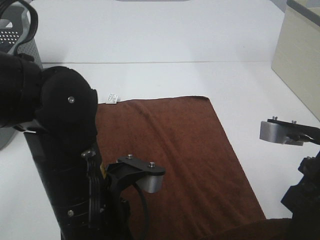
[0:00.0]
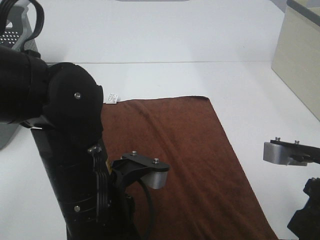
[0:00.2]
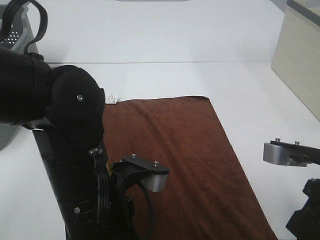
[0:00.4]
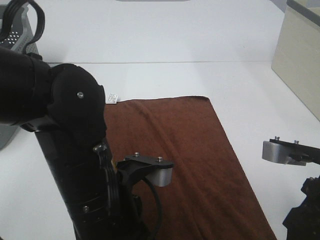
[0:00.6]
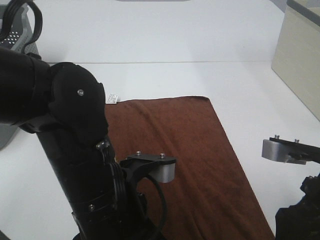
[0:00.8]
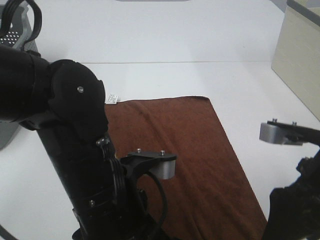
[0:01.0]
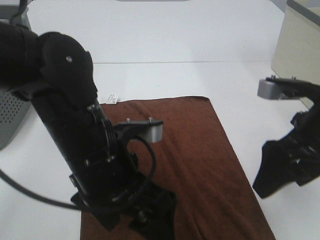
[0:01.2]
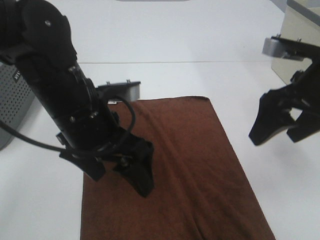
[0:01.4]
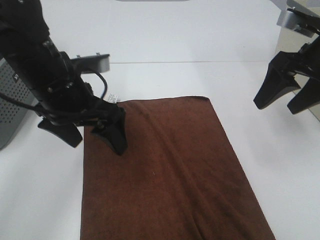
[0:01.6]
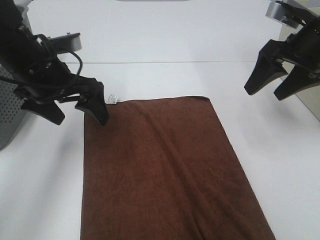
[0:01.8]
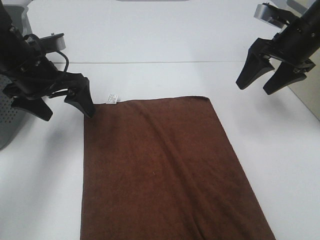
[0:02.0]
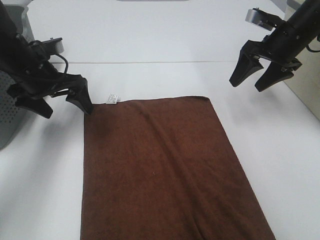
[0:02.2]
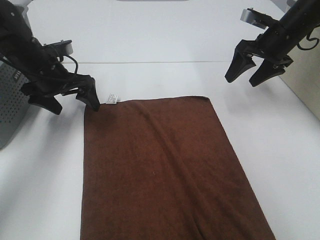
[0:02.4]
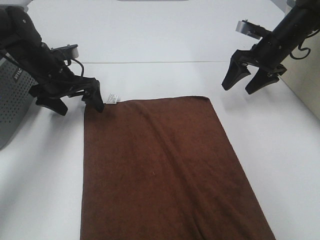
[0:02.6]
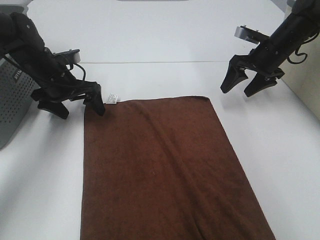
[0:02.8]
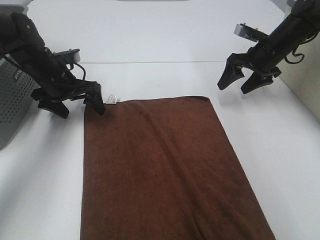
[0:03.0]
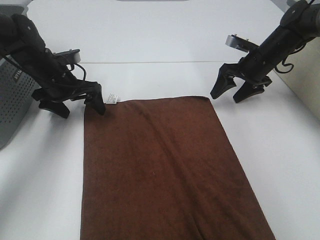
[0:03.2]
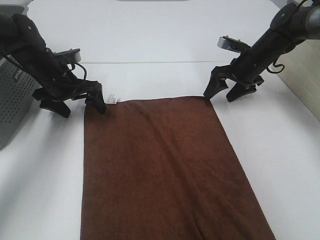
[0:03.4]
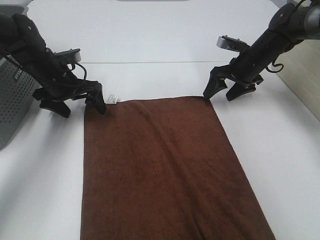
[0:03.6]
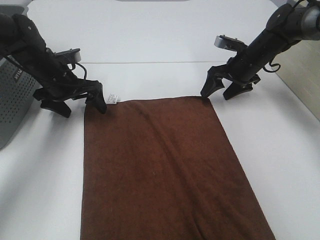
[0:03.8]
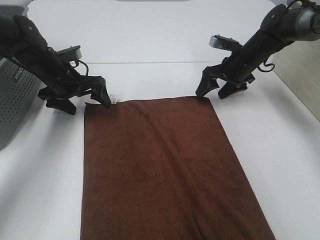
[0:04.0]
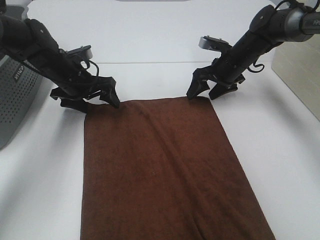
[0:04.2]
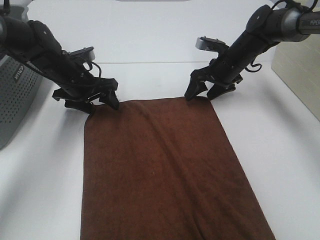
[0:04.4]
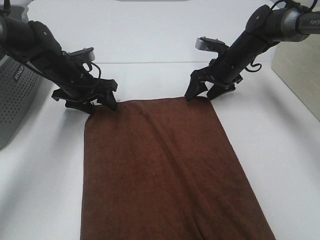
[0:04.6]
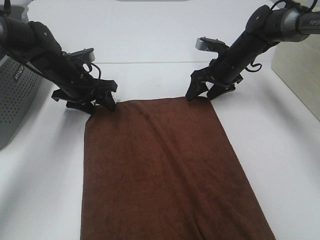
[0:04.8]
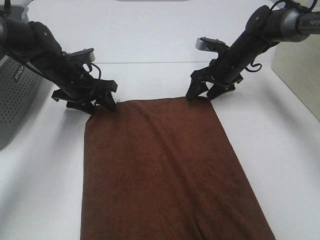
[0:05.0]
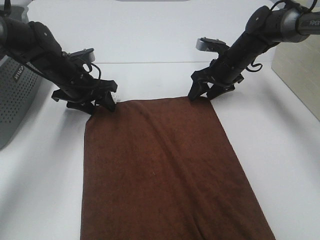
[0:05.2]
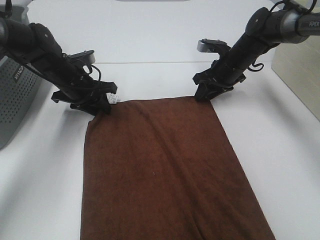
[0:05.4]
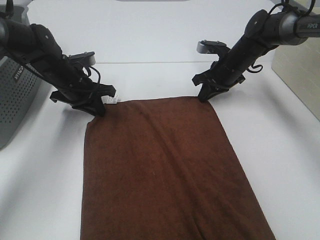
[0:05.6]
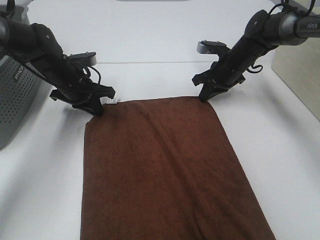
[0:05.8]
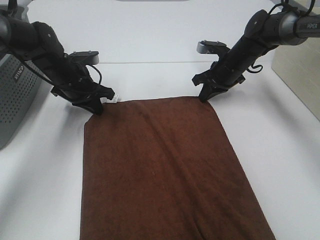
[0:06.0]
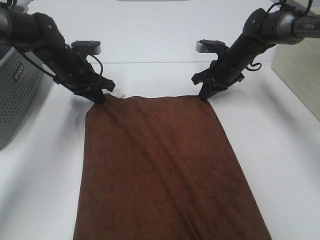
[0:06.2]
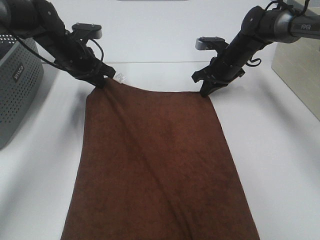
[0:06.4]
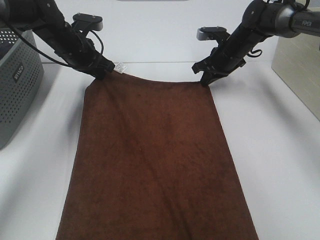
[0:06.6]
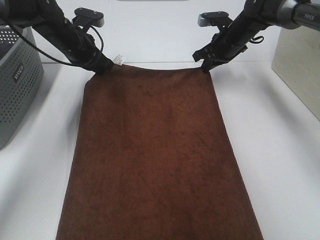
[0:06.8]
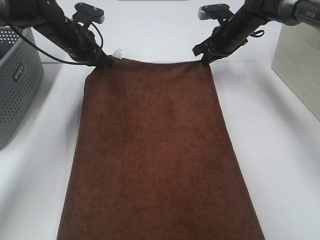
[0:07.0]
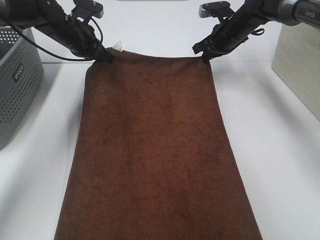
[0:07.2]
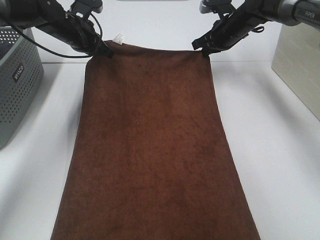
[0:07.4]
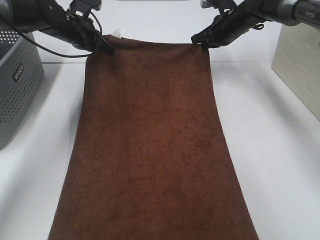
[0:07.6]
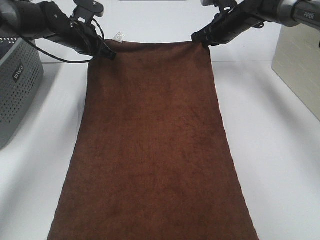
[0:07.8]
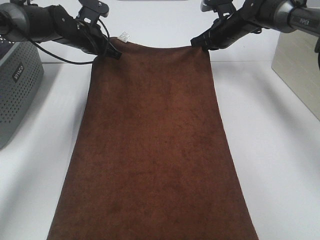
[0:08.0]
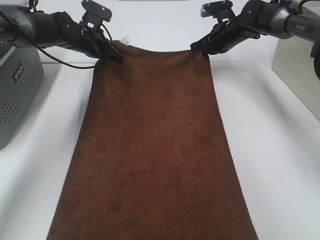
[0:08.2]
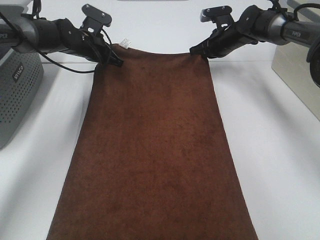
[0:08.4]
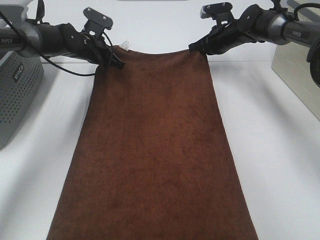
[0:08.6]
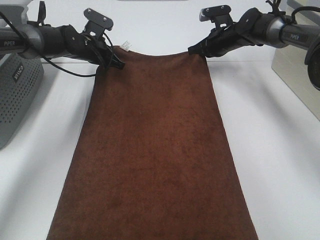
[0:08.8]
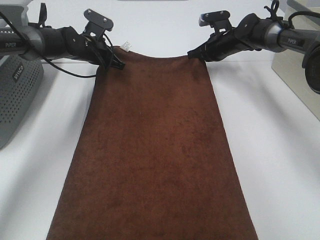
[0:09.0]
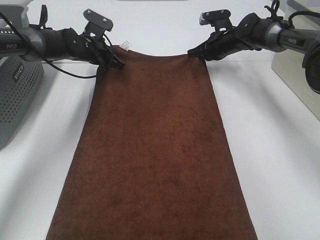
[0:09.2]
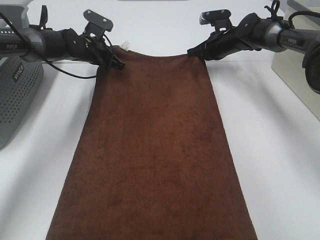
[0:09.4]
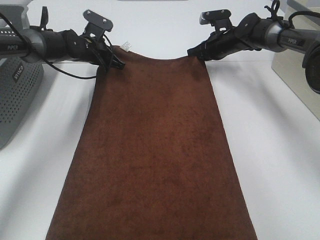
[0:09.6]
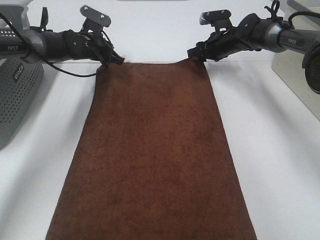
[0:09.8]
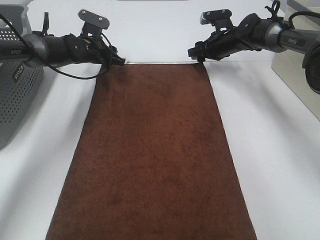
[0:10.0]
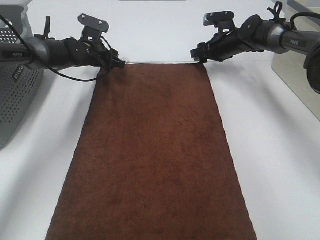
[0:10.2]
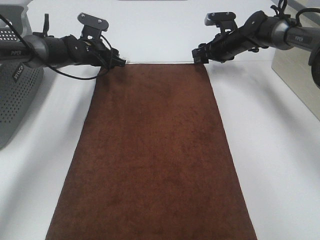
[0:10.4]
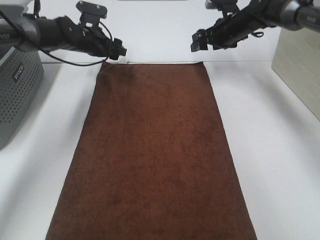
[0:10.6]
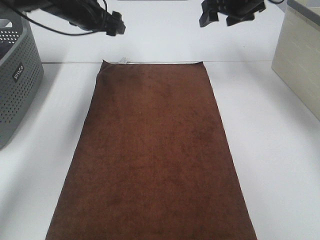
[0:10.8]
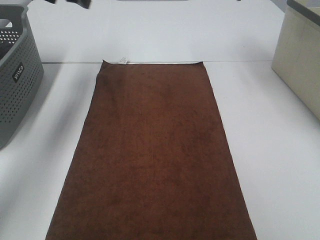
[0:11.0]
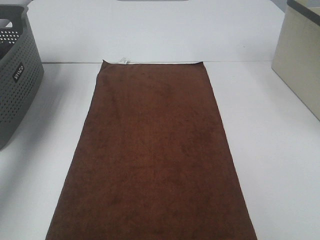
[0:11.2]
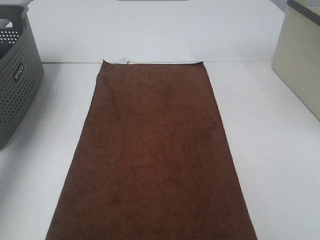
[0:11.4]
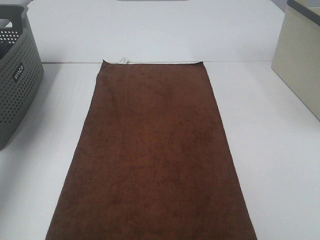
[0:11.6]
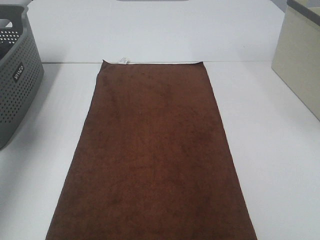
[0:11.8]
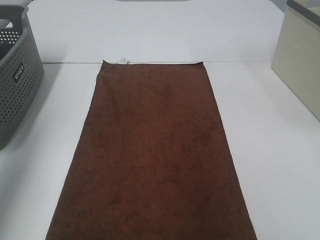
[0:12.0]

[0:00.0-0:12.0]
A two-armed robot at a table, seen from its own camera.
Task of the whole recording: Remove the towel and place it.
Step, 0:00.0 to 0:04.4: Left hand:adjust the brown towel.
Step, 0:00.0 to 0:04.4: Right hand:adjust the brown towel.
0:00.0 to 0:01.6: The left gripper goes some 15 cm forward and to the left, and opens its fingers. The right gripper heads forward, covering approximately 15 cm, and opens its fingers.
0:01.6 to 0:03.0: The right gripper travels forward and downward by approximately 20 cm. The left gripper is displaced forward, downward and to the left by some 20 cm.
0:03.0 to 0:04.4: The right gripper is displaced to the left by about 10 cm.
0:04.4 to 0:06.0: The left gripper closes up; the right gripper closes its fingers.
0:06.0 to 0:07.6: The left gripper is displaced forward and upward by roughly 10 cm. Meanwhile the right gripper moves upward and forward, roughly 10 cm.
0:07.6 to 0:09.0: The two grippers go approximately 5 cm downward.
0:09.0 to 0:10.4: The right gripper opens up. Meanwhile the left gripper opens up.
0:10.4 to 0:12.0: The right gripper is displaced backward and upward by approximately 50 cm, while the left gripper goes some 50 cm backward, upward and to the left.

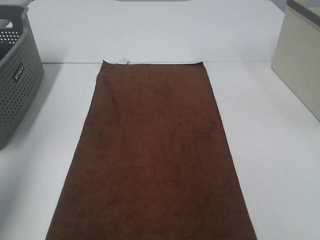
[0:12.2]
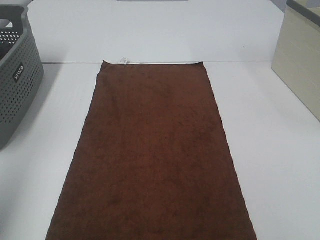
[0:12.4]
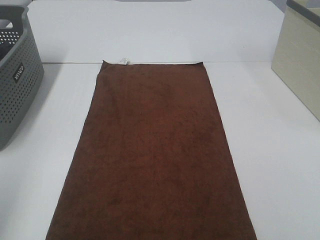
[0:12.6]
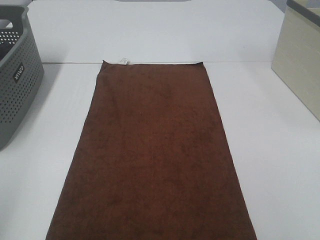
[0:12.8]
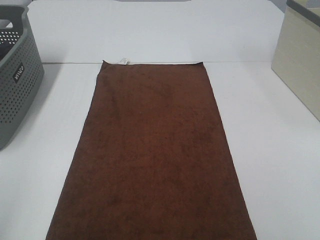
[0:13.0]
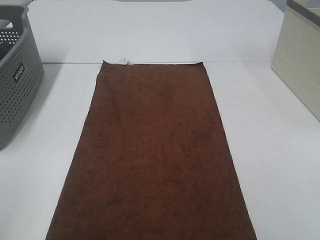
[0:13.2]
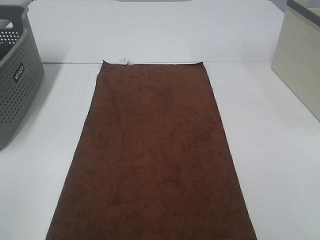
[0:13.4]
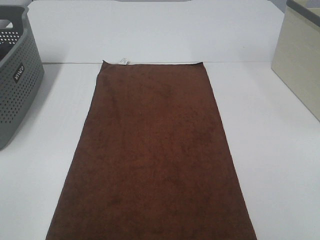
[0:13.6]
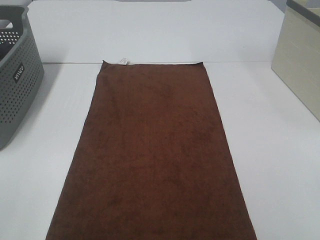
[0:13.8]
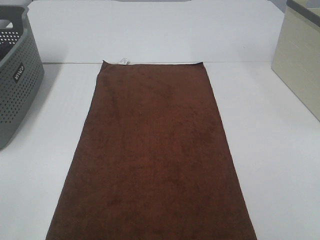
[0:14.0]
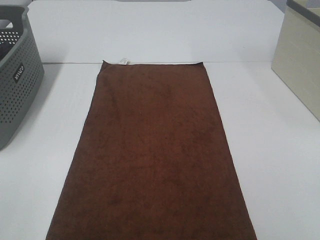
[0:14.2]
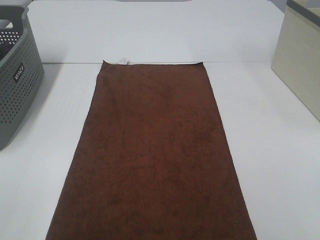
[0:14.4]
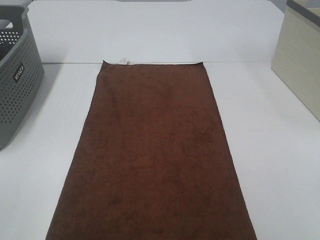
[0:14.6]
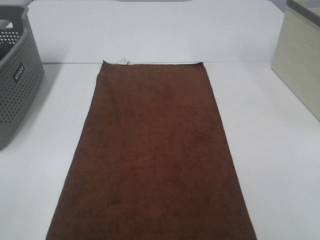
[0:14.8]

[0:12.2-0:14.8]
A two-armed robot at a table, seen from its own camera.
Task of the whole recording: Remove the towel and place it.
0:12.2 to 0:13.4: The left gripper is displaced backward and downward by about 20 cm.

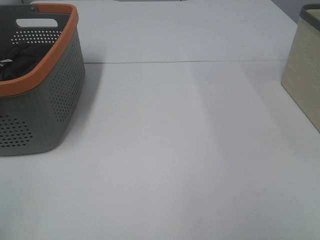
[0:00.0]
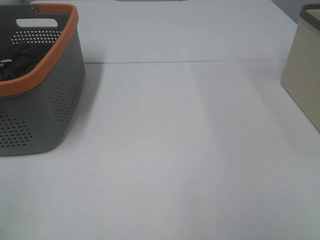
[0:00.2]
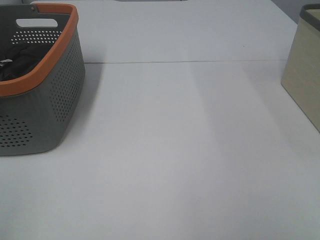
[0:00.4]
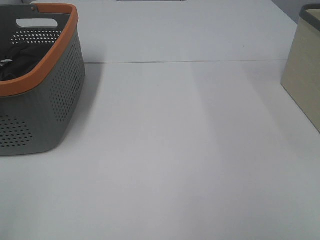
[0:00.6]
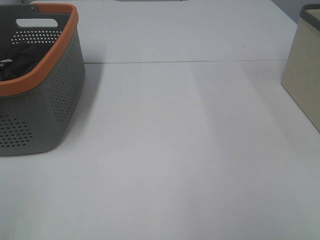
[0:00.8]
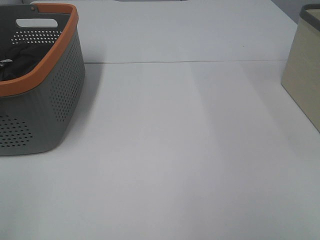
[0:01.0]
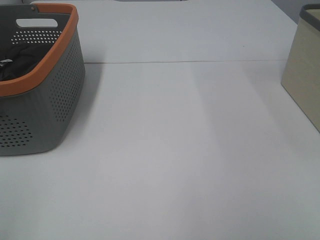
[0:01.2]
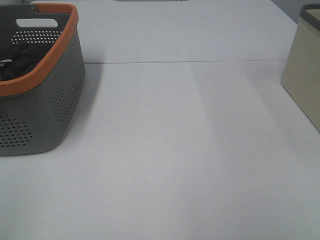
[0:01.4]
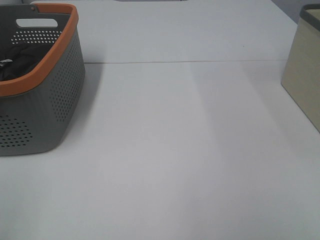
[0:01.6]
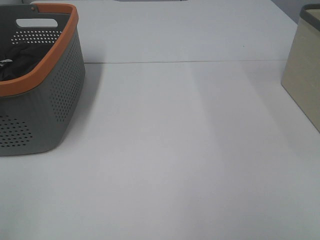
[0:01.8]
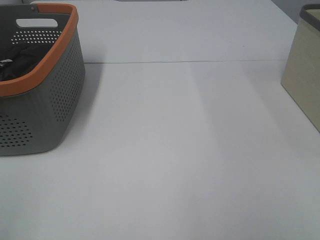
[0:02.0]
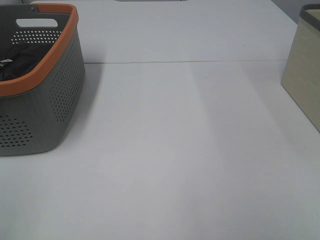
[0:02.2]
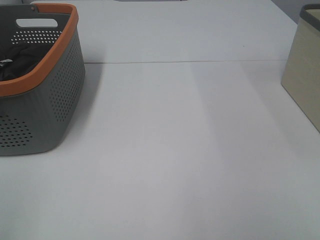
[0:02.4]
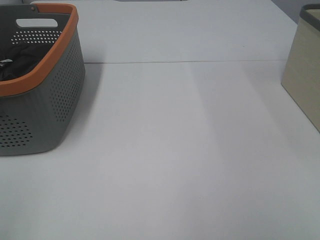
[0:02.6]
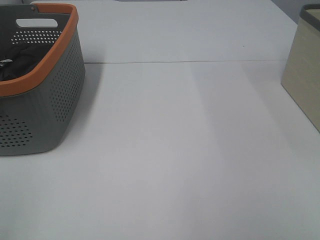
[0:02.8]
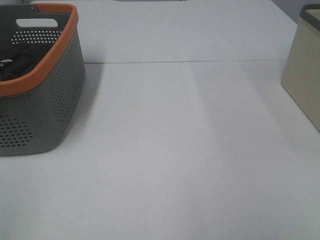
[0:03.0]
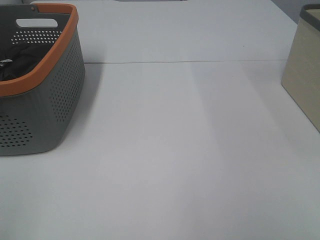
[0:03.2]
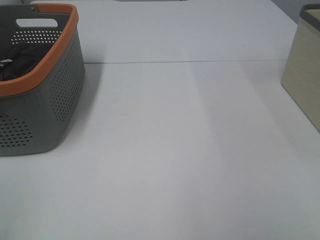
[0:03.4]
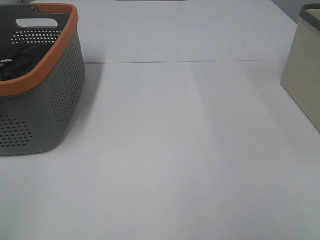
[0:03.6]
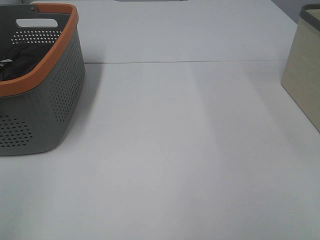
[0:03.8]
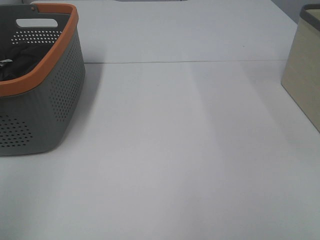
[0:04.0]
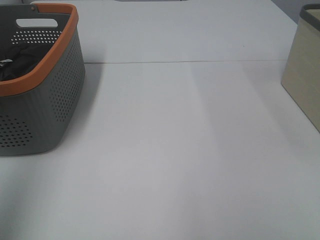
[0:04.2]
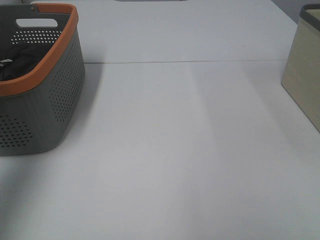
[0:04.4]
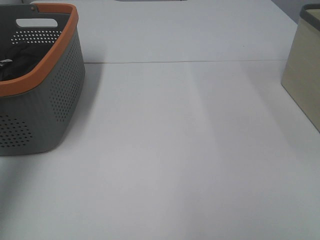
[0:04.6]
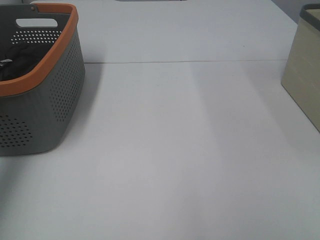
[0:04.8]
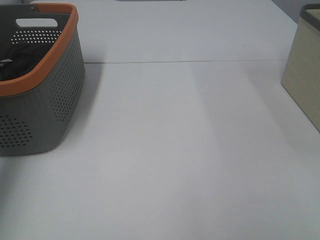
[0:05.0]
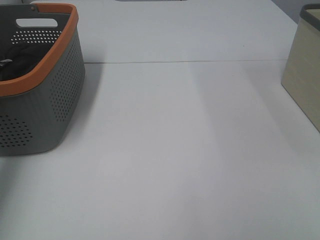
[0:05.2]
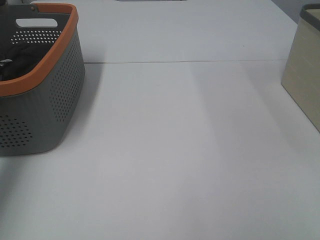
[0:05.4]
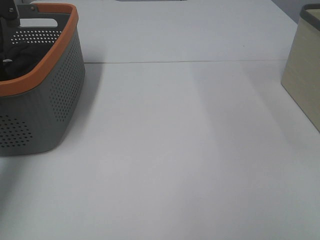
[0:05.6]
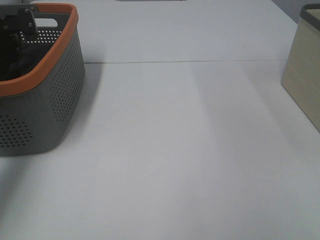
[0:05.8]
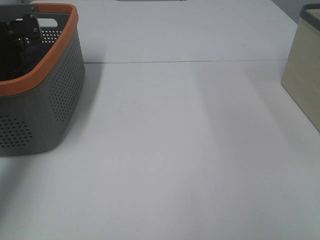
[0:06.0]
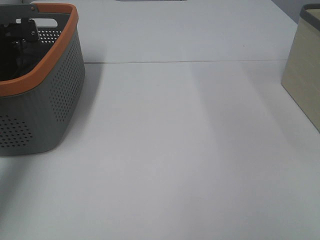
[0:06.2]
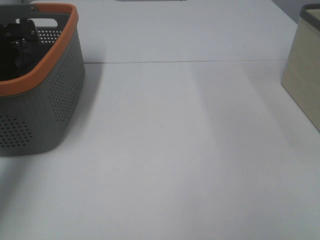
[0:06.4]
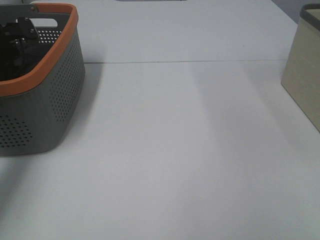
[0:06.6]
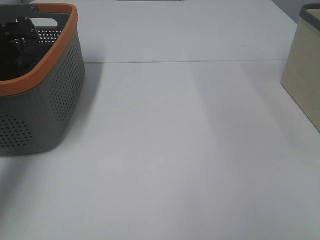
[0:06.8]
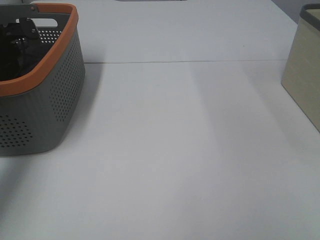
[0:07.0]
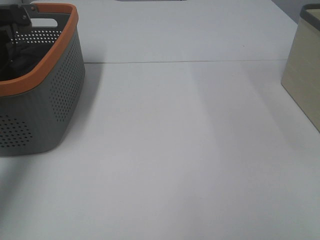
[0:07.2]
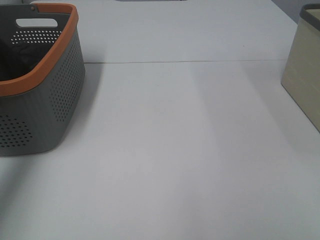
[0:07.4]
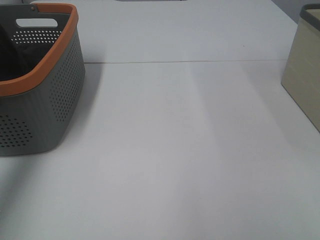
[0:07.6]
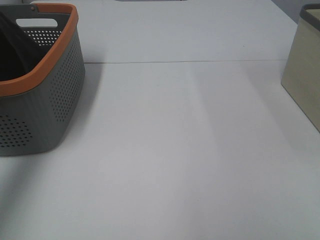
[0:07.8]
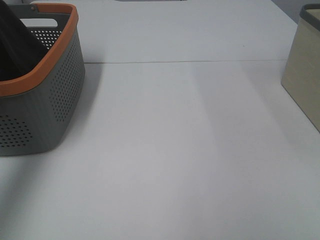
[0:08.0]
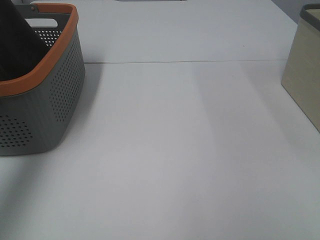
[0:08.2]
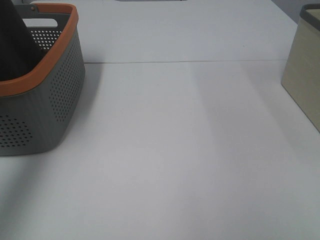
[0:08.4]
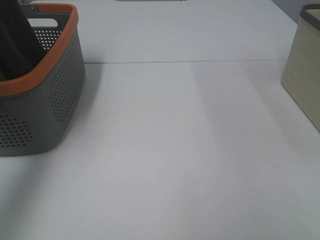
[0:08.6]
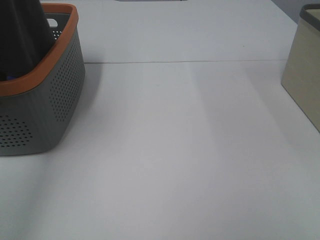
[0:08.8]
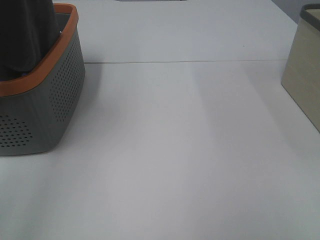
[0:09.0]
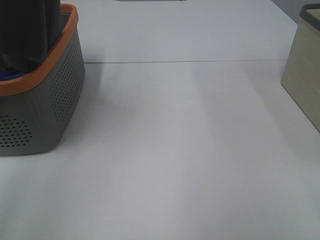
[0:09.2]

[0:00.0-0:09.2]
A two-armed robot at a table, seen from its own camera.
Task of the whole recording: Remove the towel and place it.
0:00.0 to 0:03.0: Both grippers stay about where they are.
0:03.0 to 0:04.6: The left gripper shifts about 35 cm forward and upward.
0:04.6 to 0:06.2: The left gripper travels downward and forward by approximately 25 cm, and closes up.
0:07.6 to 0:09.2: The right gripper ends up about 5 cm from where it was. Meanwhile the left gripper travels upward, to the right and backward by about 25 cm.
